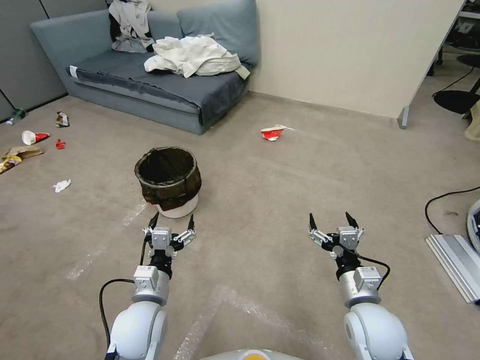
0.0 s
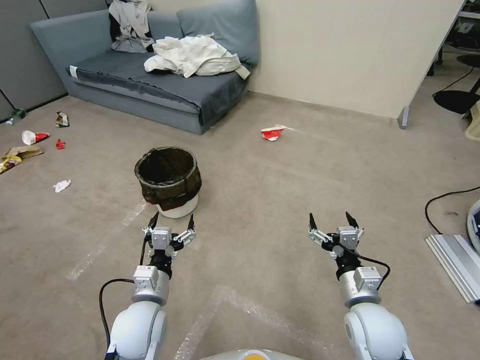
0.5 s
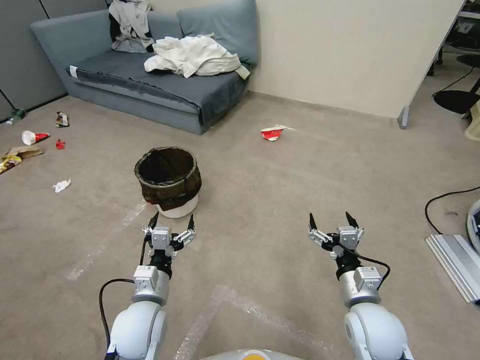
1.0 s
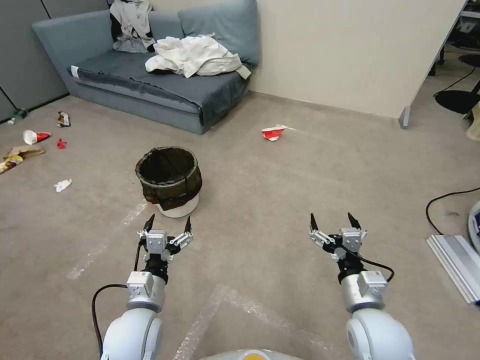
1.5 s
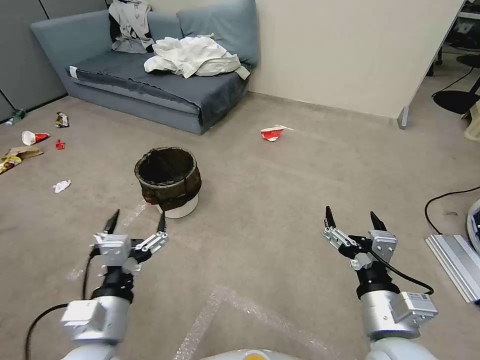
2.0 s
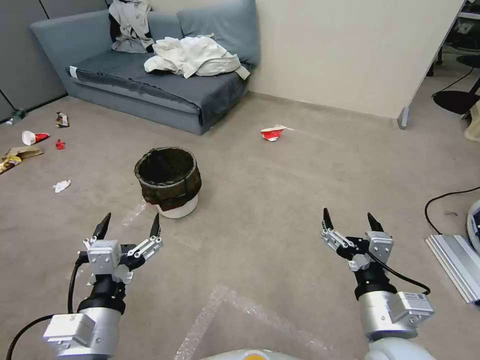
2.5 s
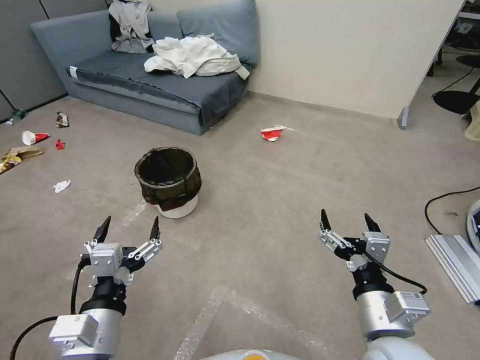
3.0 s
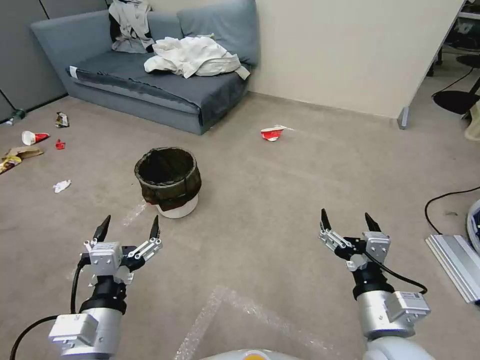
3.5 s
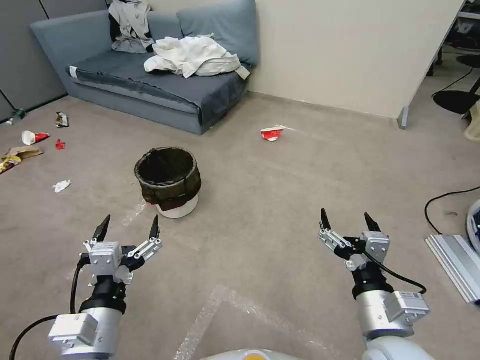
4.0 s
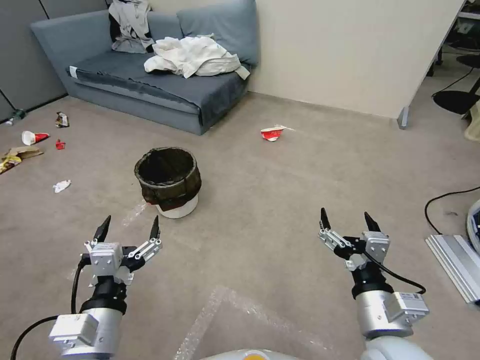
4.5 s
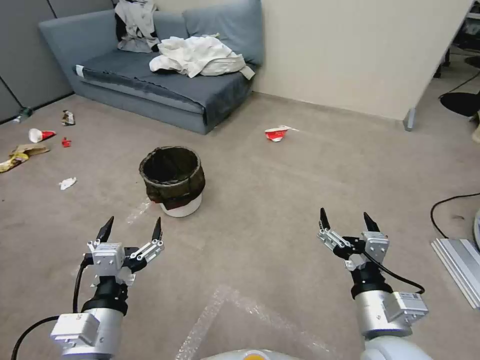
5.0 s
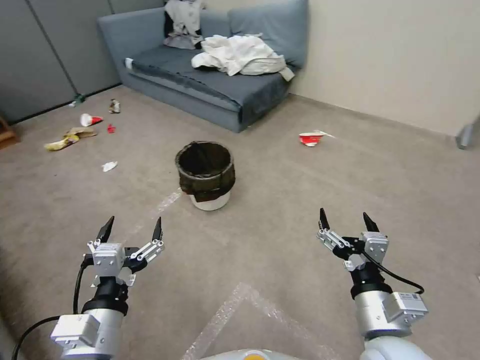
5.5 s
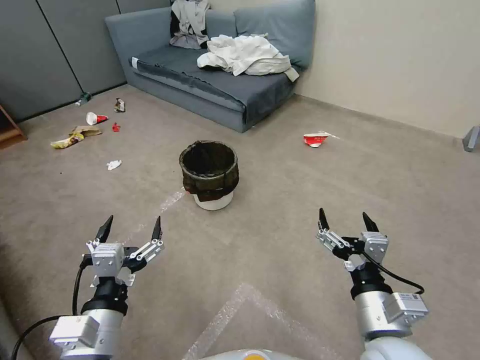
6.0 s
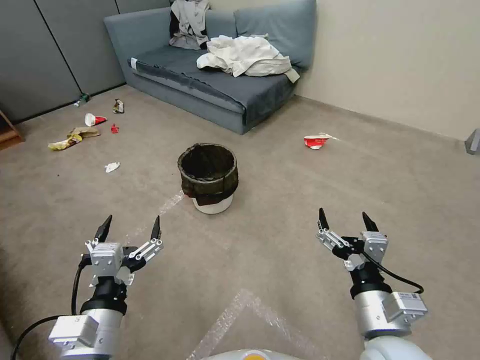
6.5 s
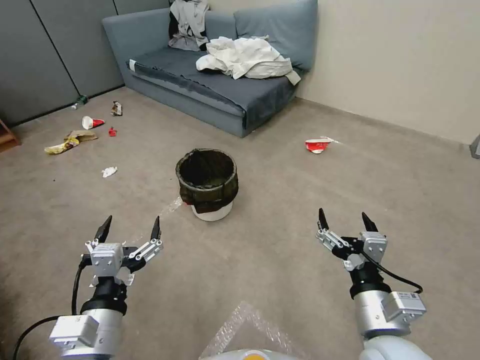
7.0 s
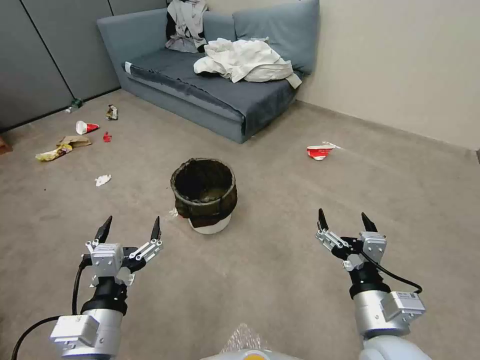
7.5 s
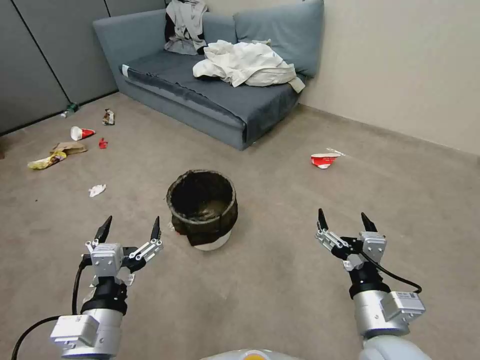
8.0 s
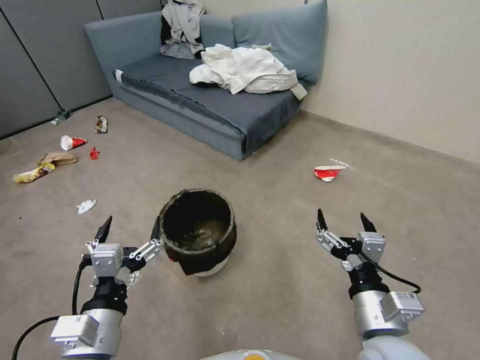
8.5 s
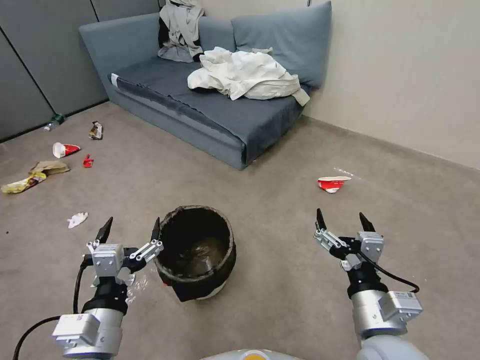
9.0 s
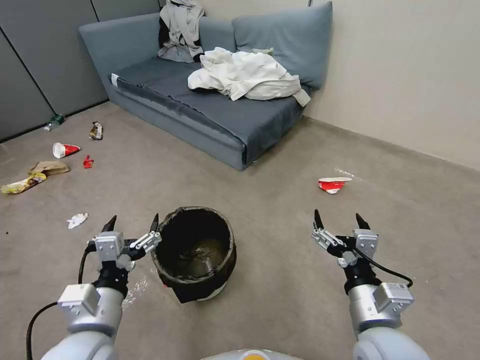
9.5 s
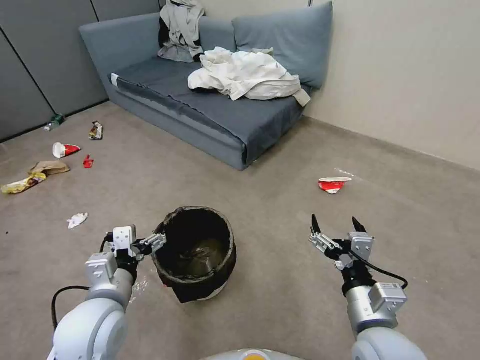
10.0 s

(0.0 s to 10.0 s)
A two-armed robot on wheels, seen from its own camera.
Task of the whole recording: Pick up the trash can from the floor.
2.0 s - 4.0 s: The grippers move only a little.
6.0 s - 8.0 s: Both grippers stay put.
8.0 s - 10.0 s: The left gripper goes roughly 10 cm forward.

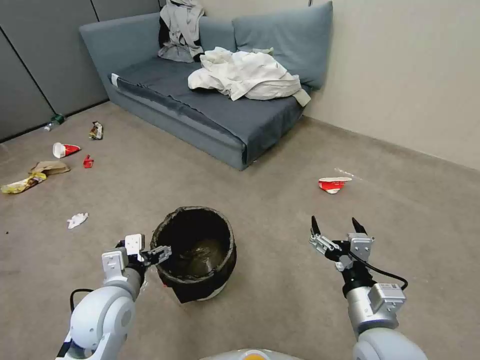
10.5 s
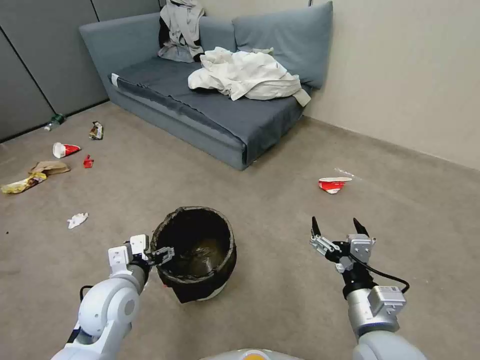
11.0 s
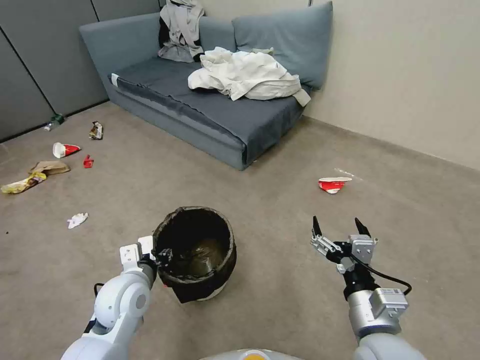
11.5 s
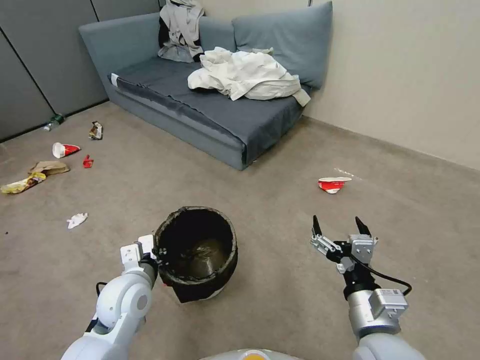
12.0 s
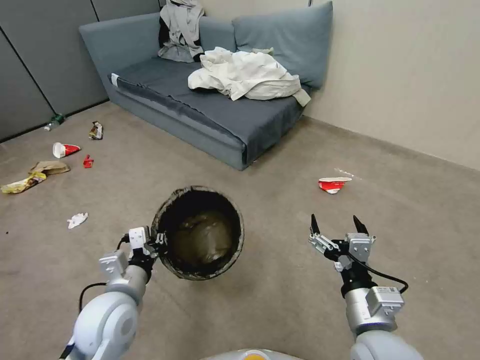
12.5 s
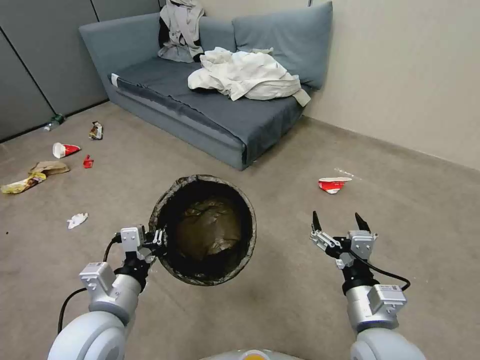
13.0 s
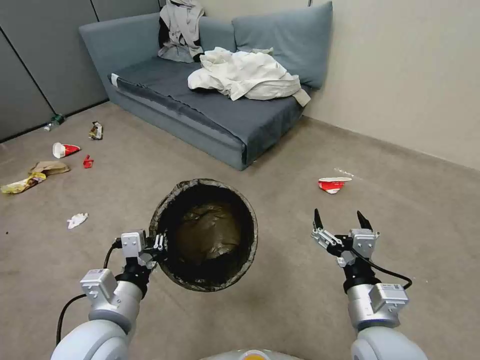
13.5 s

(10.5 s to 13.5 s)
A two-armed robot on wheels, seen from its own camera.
Task of the whole recording: Pick up the trash can from the floor.
10.5 s - 12.0 s: The left gripper closes up.
12.0 s - 13.5 s: The left gripper is displaced backward and upward by some 10 cm.

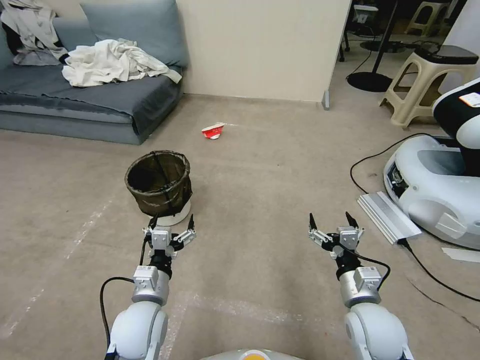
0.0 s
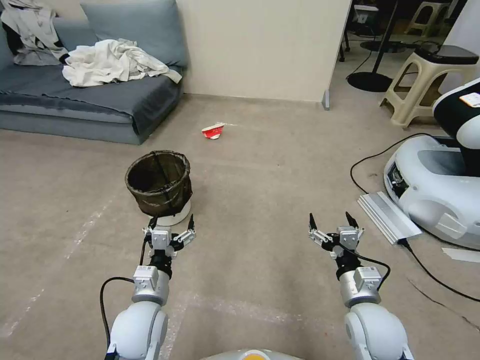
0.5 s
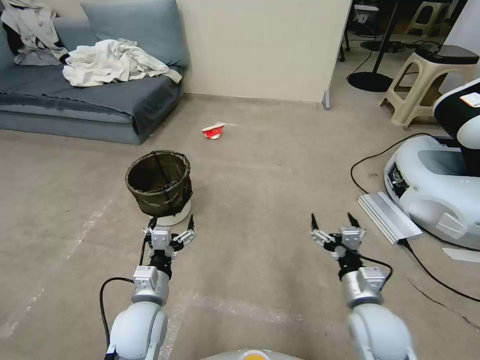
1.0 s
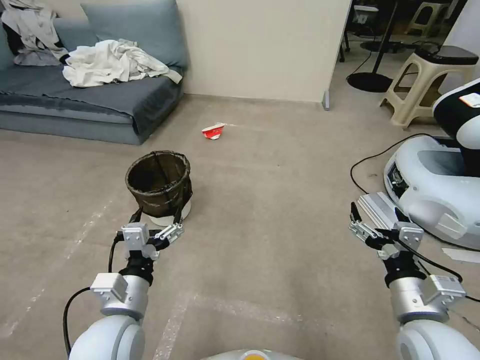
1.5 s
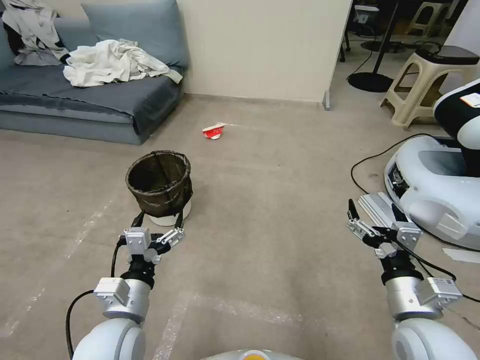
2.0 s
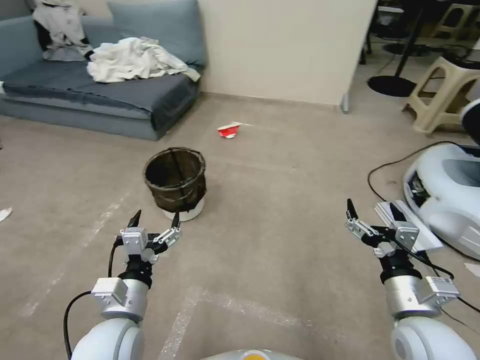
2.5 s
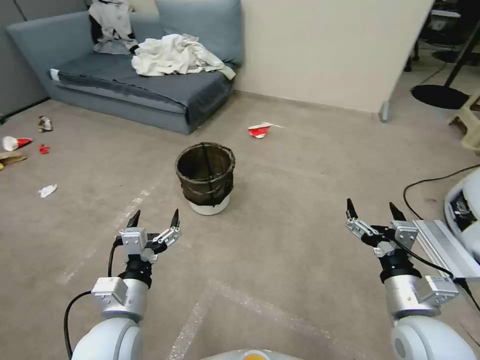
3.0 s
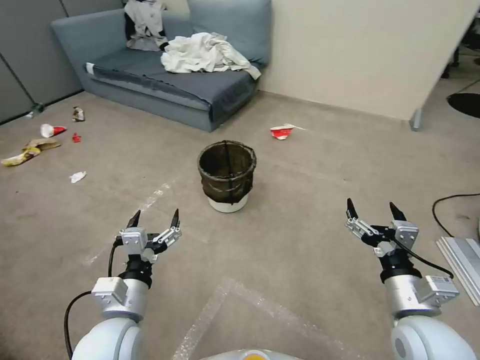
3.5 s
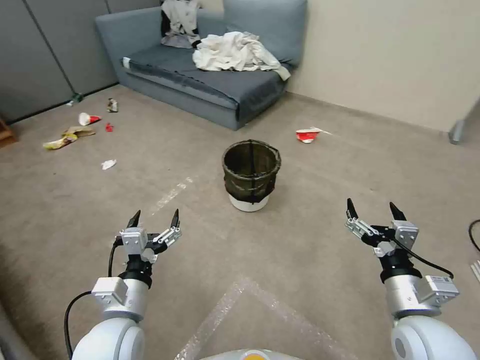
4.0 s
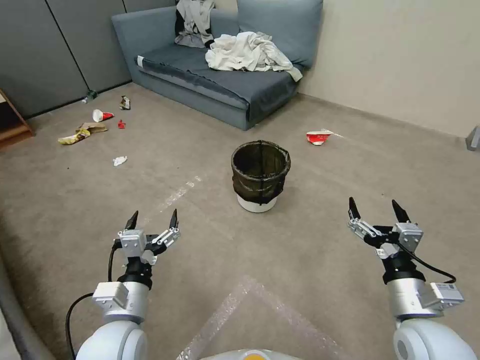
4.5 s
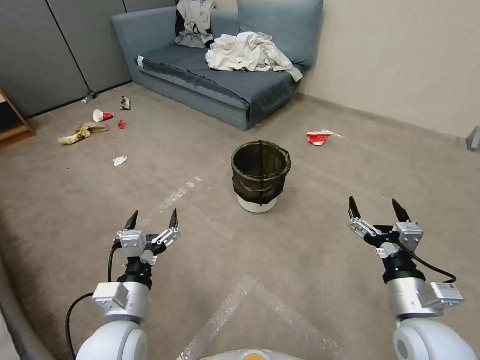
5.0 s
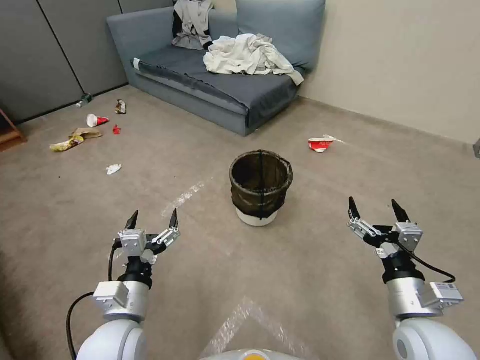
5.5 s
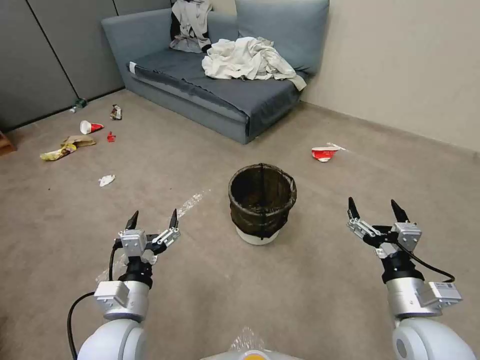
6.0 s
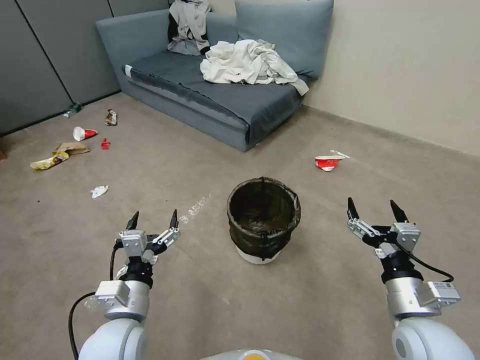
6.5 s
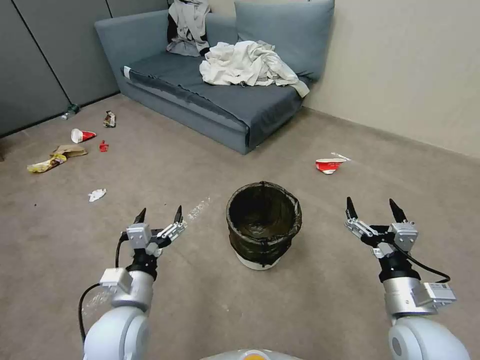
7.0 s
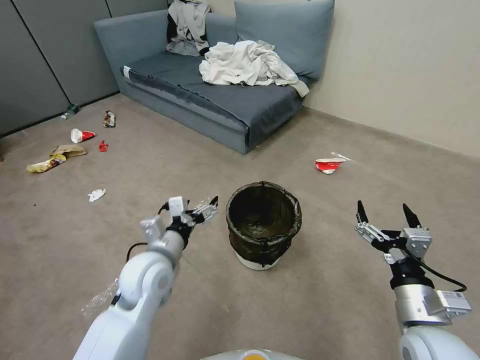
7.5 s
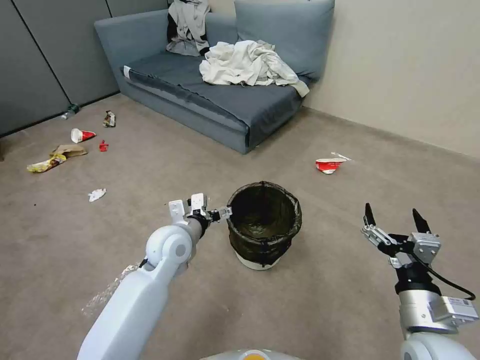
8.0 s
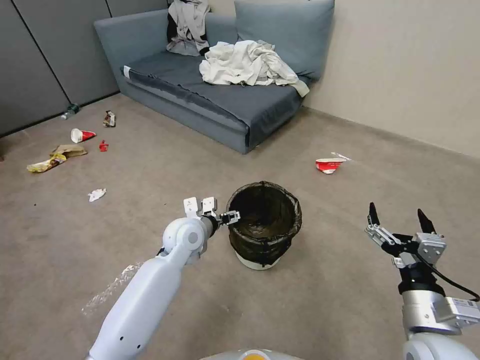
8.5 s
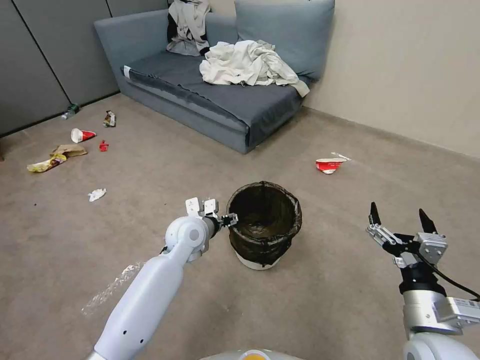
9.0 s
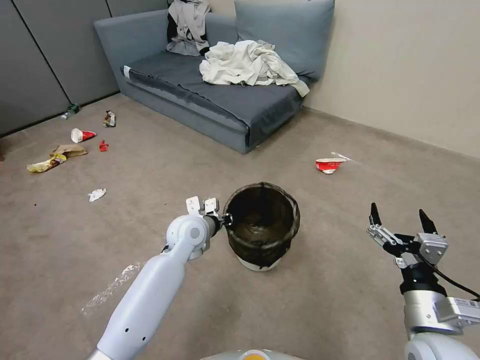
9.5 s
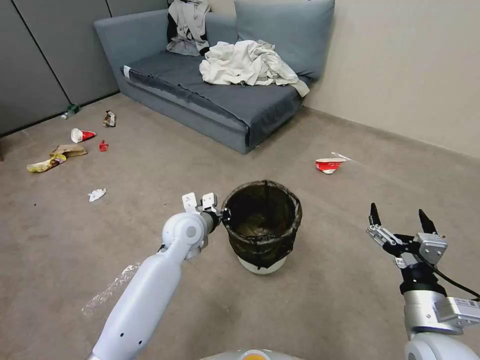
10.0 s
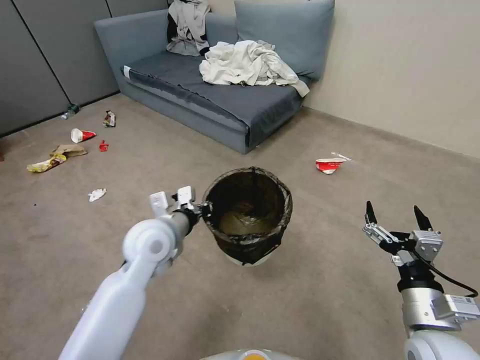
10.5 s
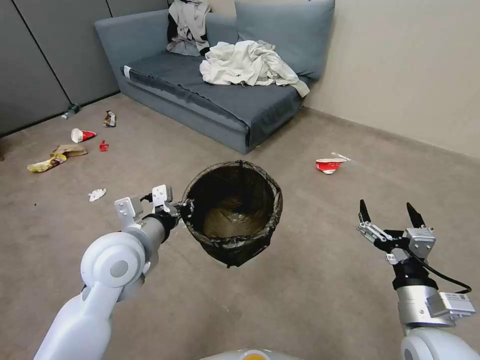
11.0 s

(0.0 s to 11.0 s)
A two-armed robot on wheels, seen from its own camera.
Task of the whole recording: Pick up the trash can from the floor.
5.5 s - 7.5 s: The left gripper is displaced forward by roughly 10 cm.
7.5 s - 9.0 s: The left gripper moves forward and to the right, some 15 cm, and closes its fingers.
9.0 s - 11.0 s: The left gripper goes some 20 cm upward, backward and to the left, and closes.

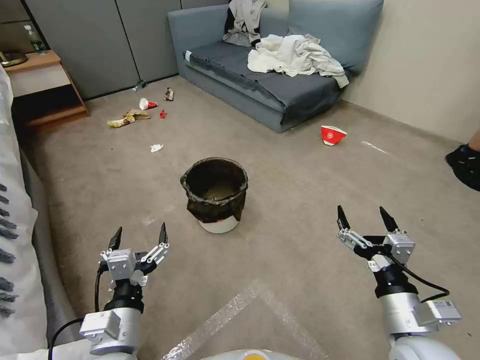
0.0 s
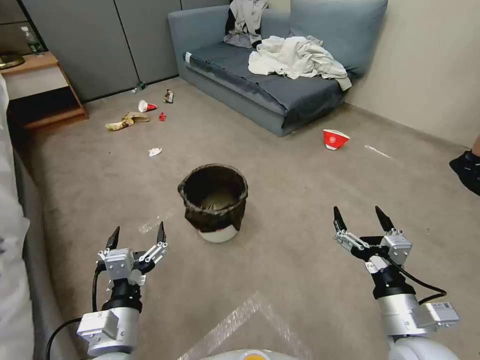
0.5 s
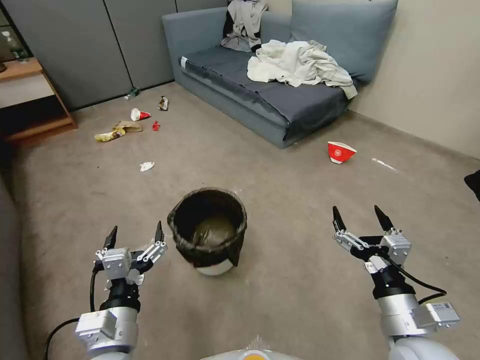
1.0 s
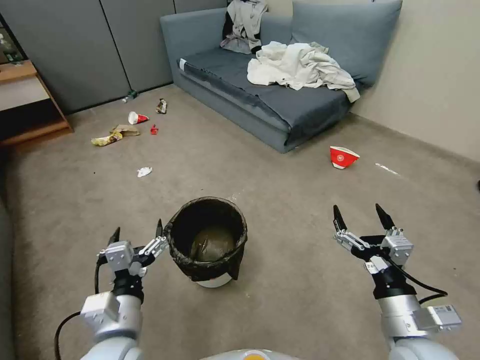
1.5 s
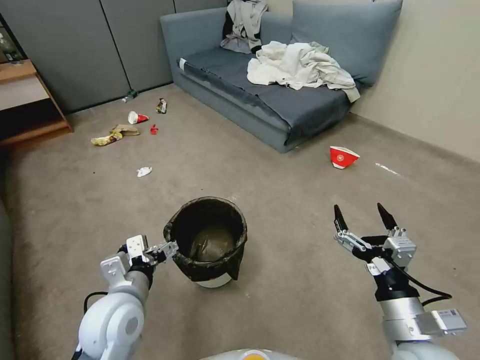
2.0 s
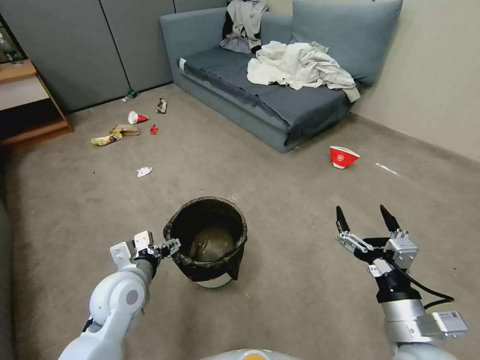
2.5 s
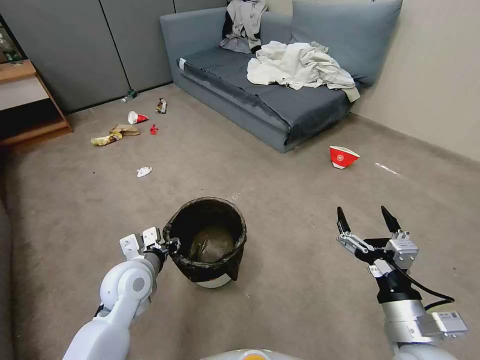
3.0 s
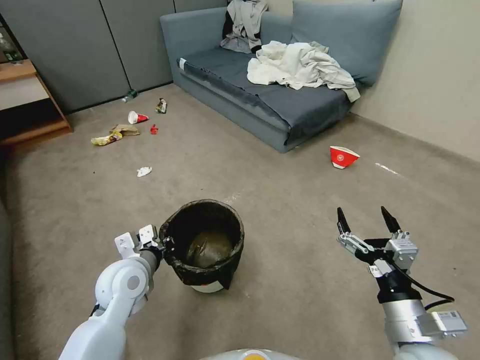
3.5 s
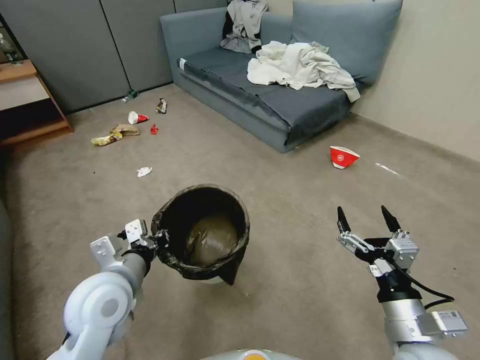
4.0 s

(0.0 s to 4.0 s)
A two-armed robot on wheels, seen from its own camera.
Task of the whole recording: Pick up the trash can from the floor.
0.0 s - 2.0 s: The left gripper shifts approximately 10 cm forward.
2.0 s - 4.0 s: The left gripper closes.
